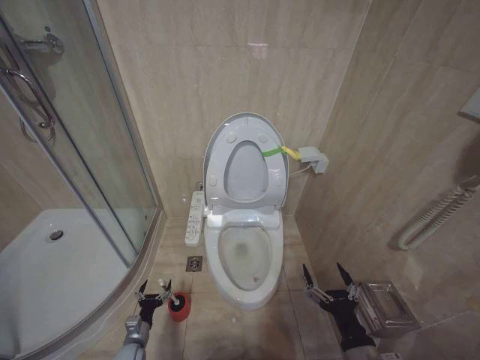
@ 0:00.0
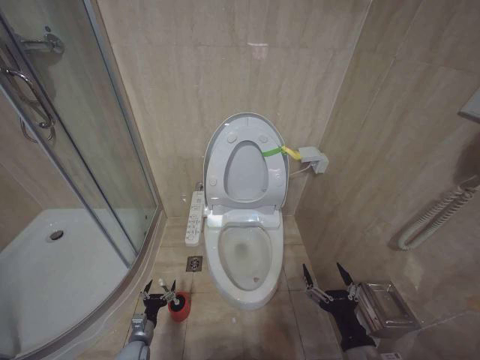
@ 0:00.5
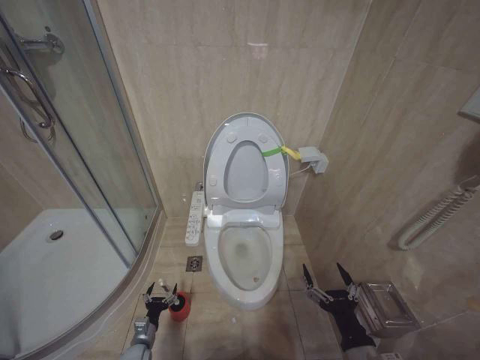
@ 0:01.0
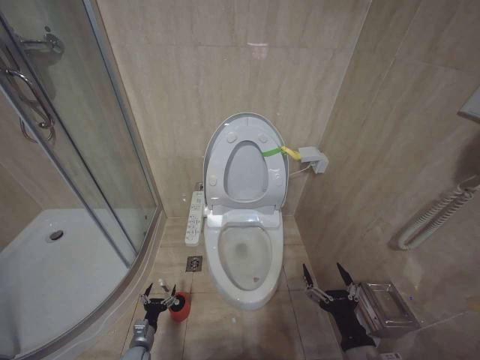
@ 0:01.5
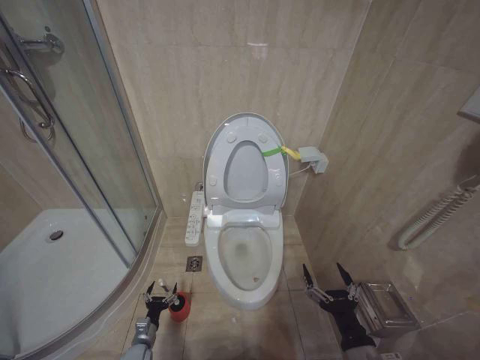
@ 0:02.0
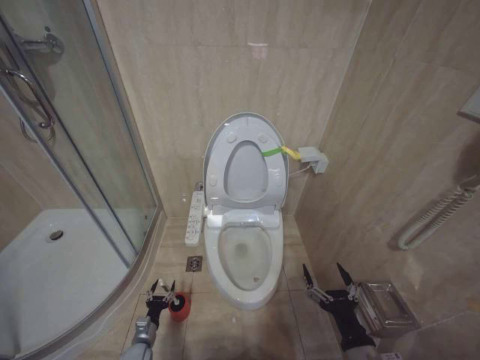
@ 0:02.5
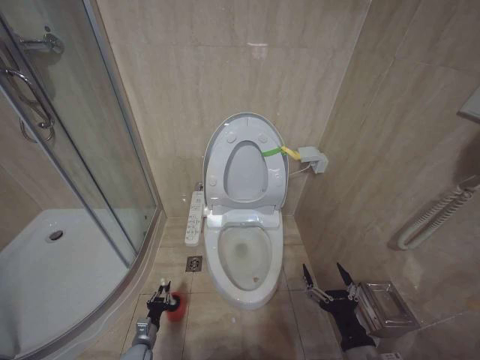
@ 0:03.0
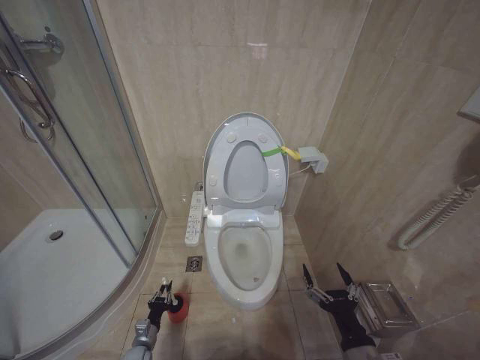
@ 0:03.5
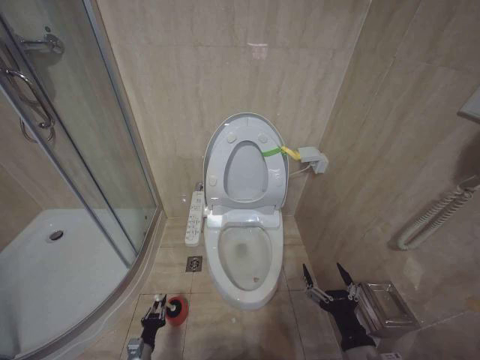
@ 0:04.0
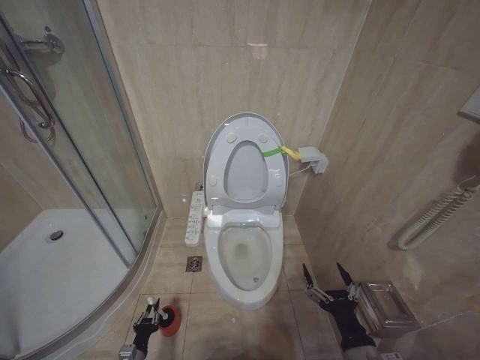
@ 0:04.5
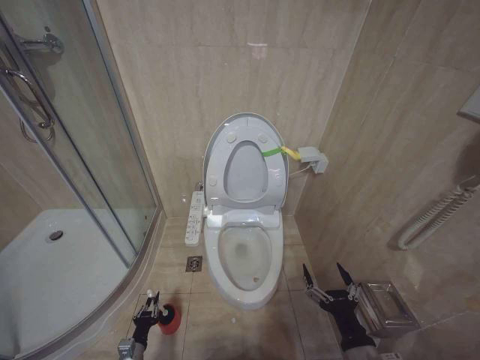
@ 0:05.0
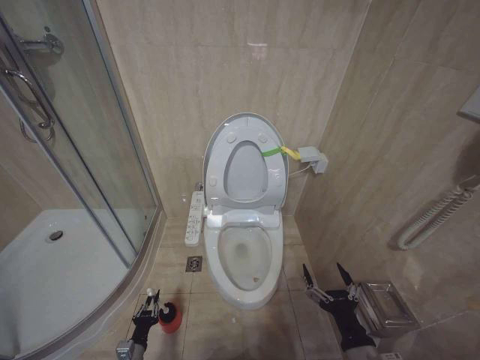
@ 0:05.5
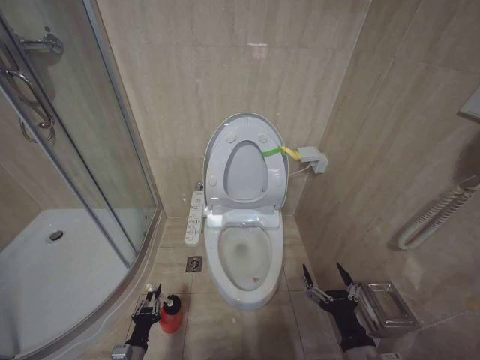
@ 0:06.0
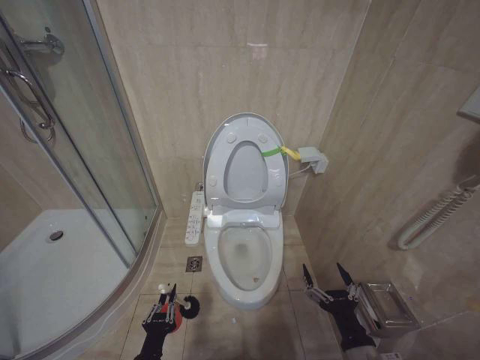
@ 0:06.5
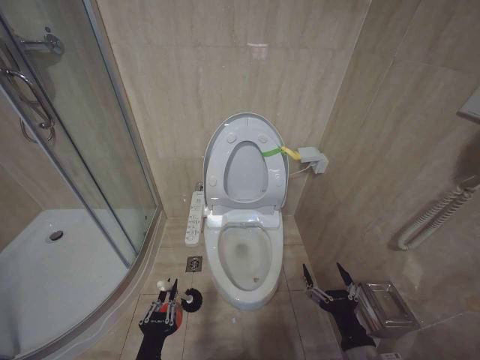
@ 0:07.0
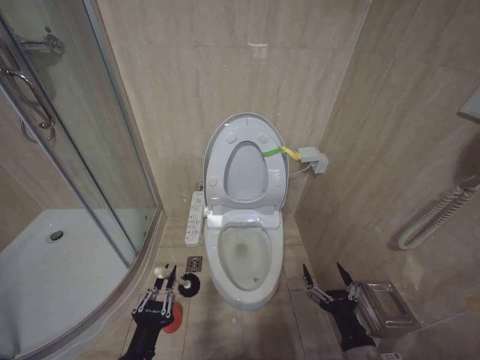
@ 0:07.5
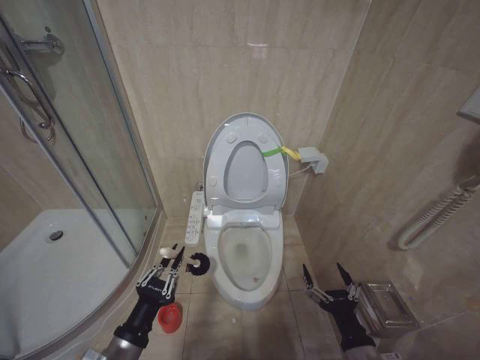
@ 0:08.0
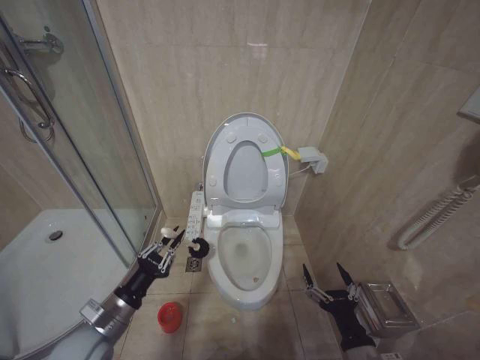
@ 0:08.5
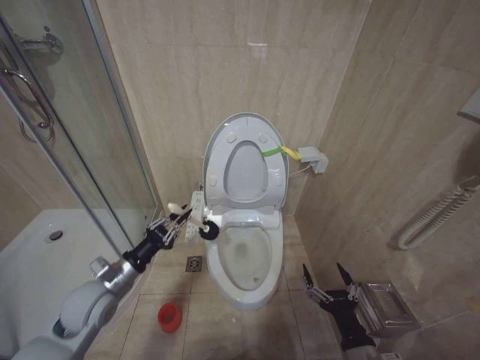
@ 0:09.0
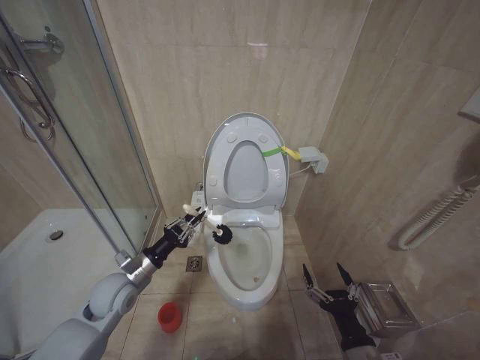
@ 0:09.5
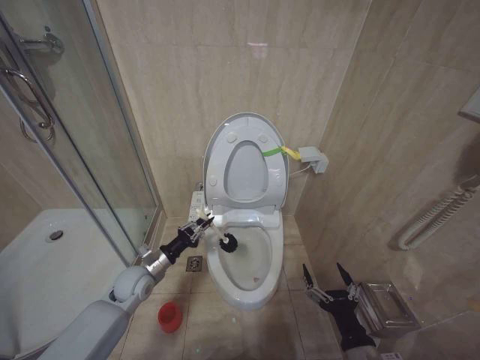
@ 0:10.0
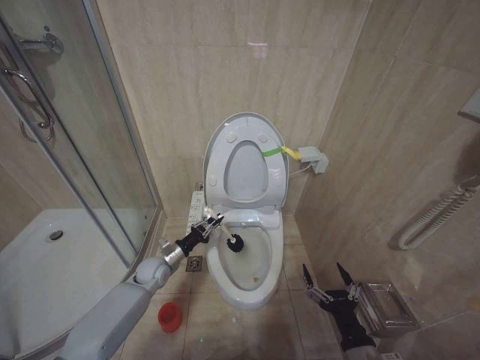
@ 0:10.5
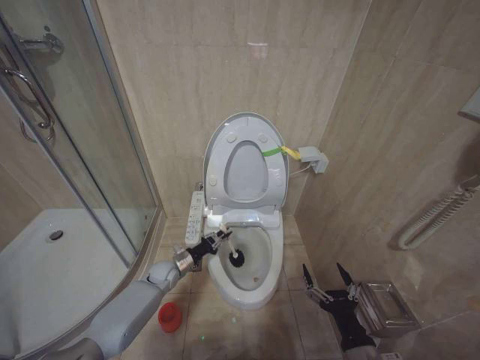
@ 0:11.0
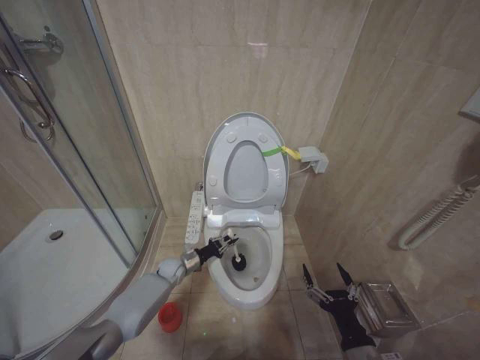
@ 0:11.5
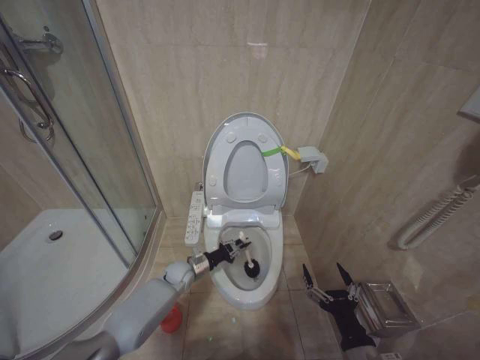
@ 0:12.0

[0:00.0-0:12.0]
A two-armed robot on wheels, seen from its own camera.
Task of the whole recording: Open the toilet lid, clean the toilet bowl with a toilet brush, close the toilet lid, and flush.
0:02.0 to 0:04.0: The left gripper ends up roughly 5 cm from where it was, and closes up.
0:04.0 to 0:06.0: The left gripper goes roughly 10 cm upward.
0:06.0 to 0:08.0: The left gripper moves upward, some 25 cm.
0:08.0 to 0:10.0: The left gripper is displaced forward by some 25 cm.
0:10.0 to 0:12.0: The left gripper goes about 15 cm downward, to the right and forward.

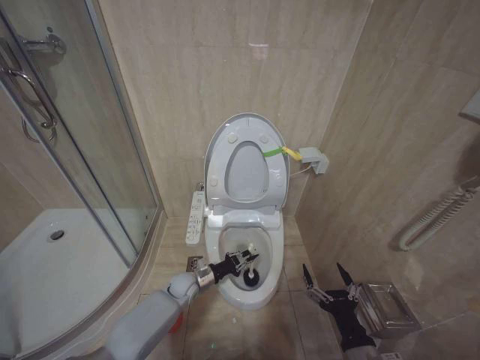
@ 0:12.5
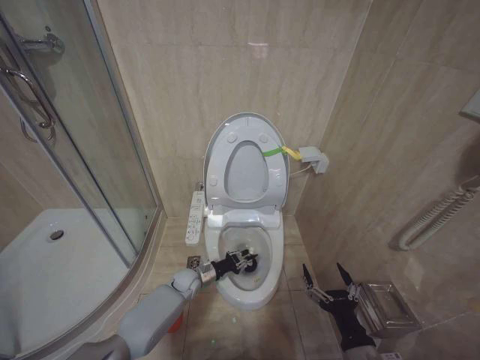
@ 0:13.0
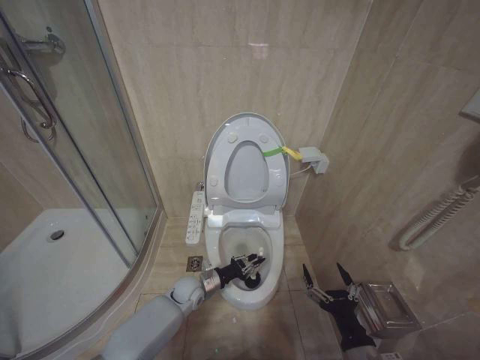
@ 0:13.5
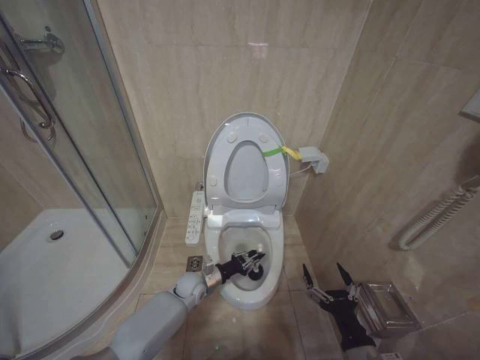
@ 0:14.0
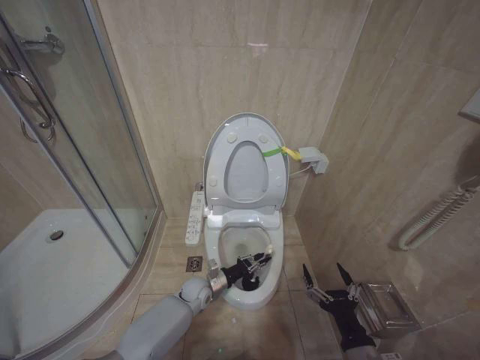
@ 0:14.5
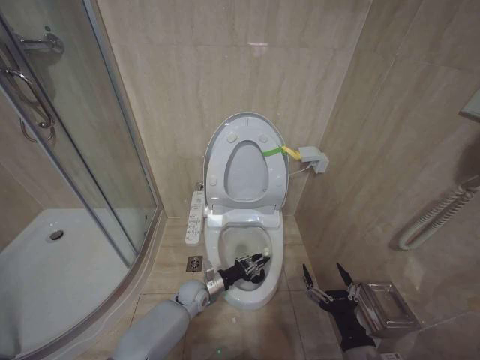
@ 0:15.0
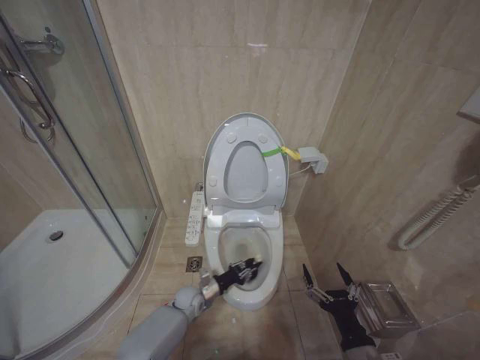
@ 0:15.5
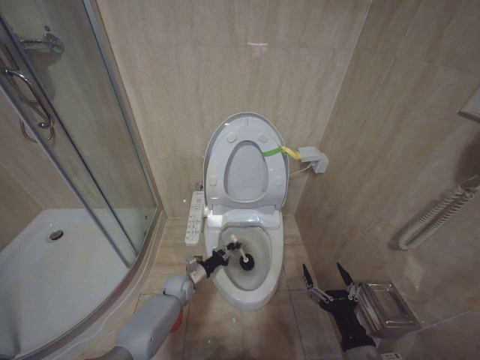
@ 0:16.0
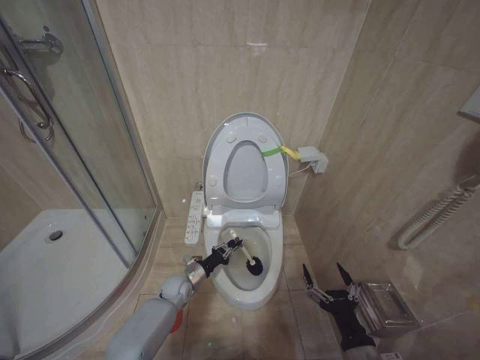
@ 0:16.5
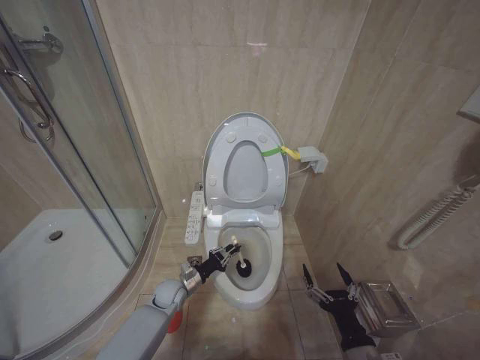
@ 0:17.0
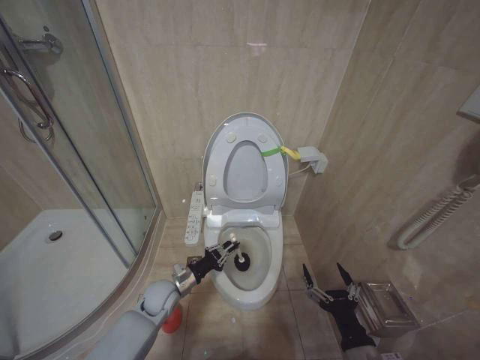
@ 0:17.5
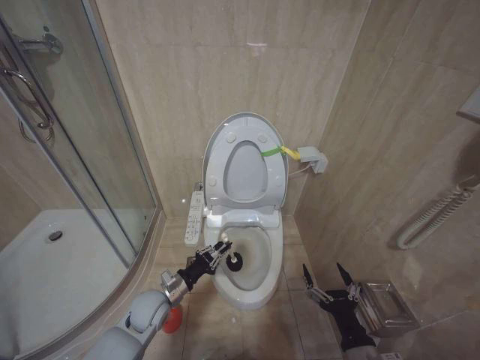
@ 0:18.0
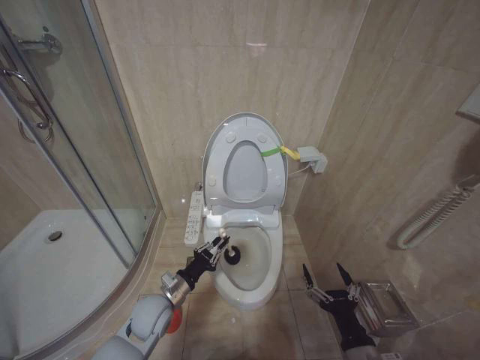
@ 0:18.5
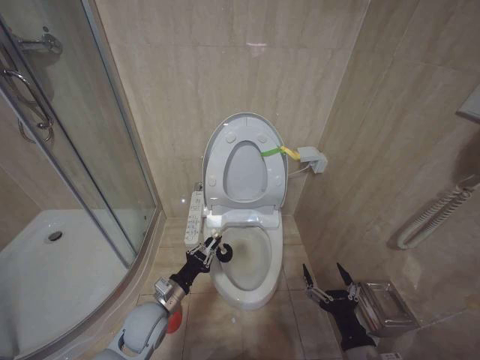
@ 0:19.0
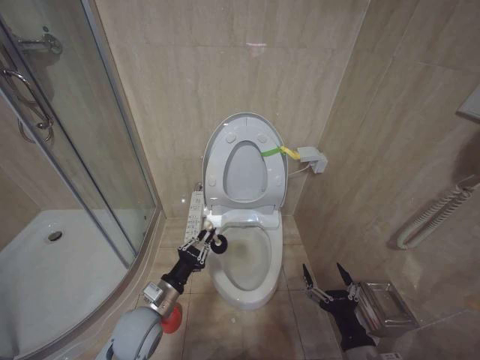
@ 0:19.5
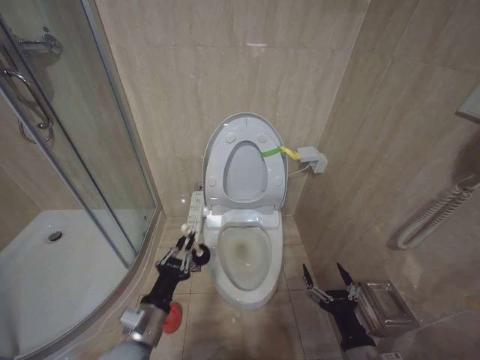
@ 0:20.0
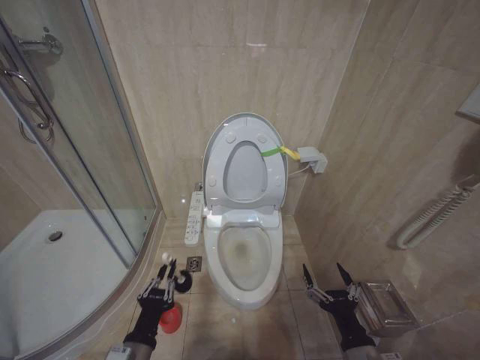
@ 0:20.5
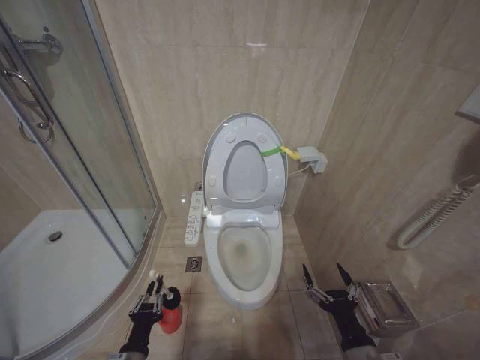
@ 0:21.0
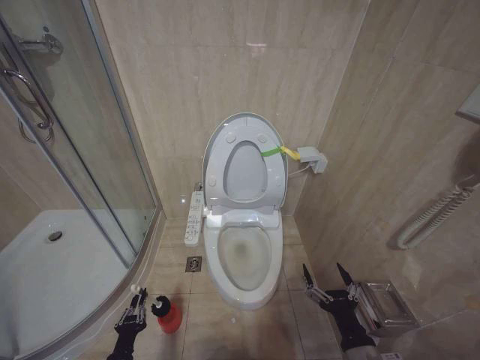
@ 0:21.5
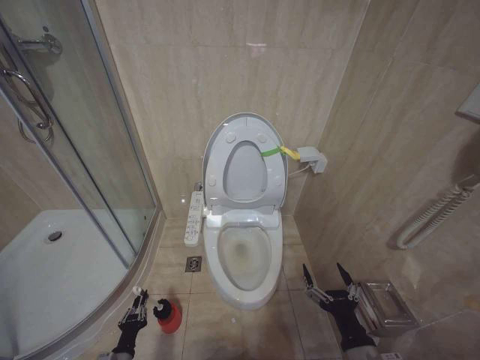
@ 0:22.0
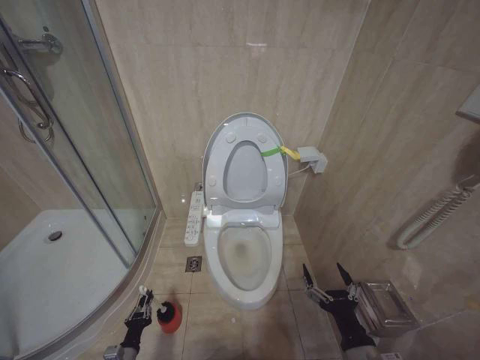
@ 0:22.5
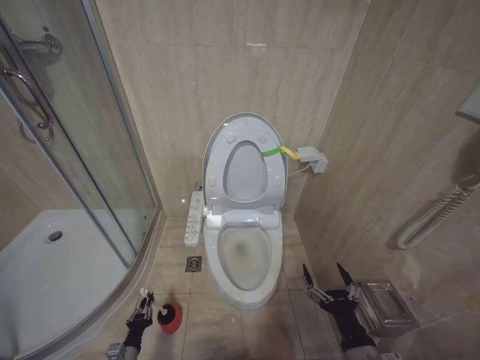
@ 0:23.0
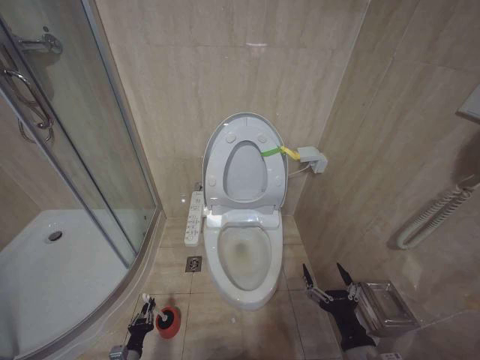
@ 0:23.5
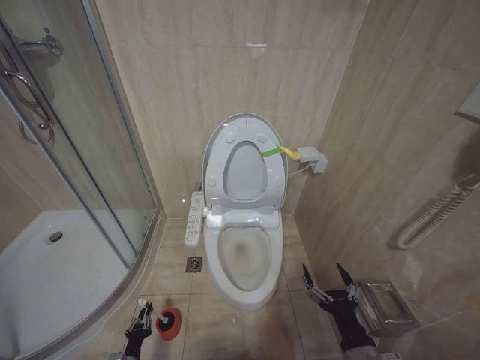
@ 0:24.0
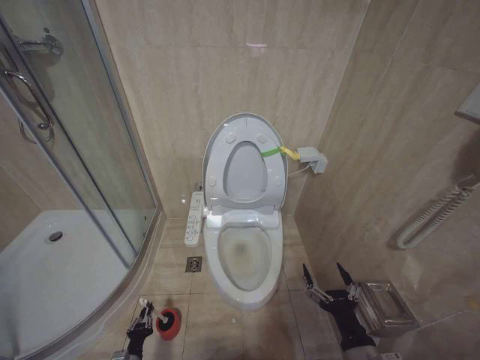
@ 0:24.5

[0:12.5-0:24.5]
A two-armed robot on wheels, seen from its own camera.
Task of the whole recording: Open the toilet lid, clean the toilet bowl with a toilet brush, close the toilet lid, and flush.
0:12.5 to 0:14.5: The left gripper is displaced to the right by about 5 cm.
0:14.5 to 0:16.5: The left gripper heads to the left, covering approximately 5 cm.
0:16.5 to 0:18.5: The left gripper heads upward and backward, covering some 15 cm.
0:18.5 to 0:20.5: The left gripper goes about 15 cm backward.
0:20.5 to 0:22.5: The left gripper travels downward and to the left by some 30 cm.
0:22.5 to 0:24.5: The grippers make only small movements.

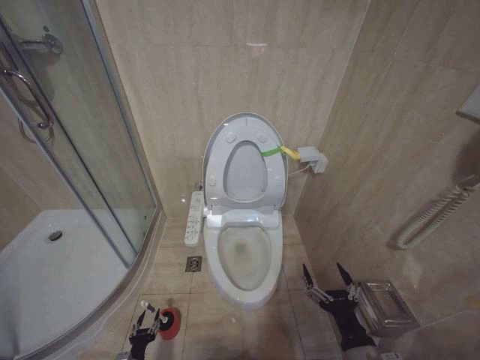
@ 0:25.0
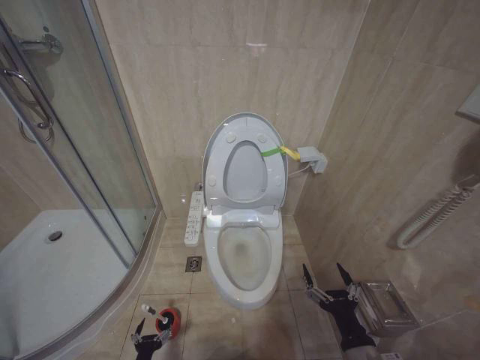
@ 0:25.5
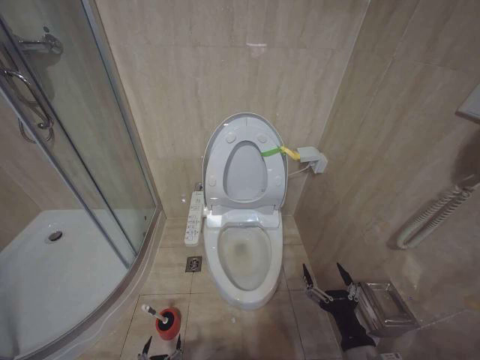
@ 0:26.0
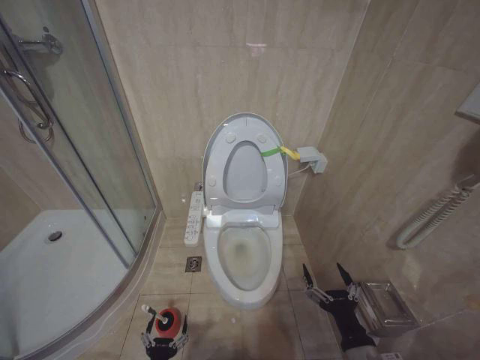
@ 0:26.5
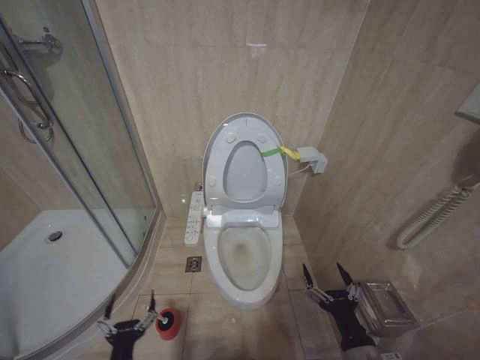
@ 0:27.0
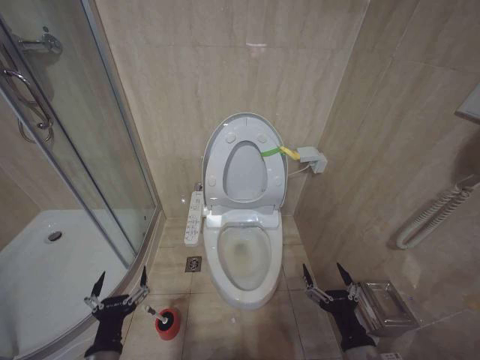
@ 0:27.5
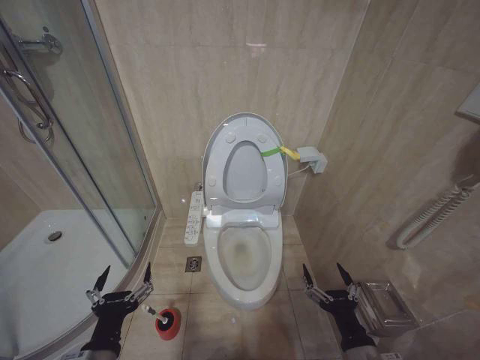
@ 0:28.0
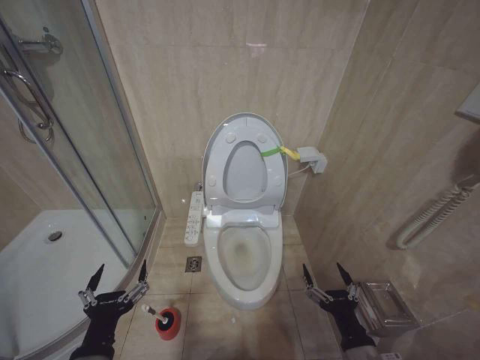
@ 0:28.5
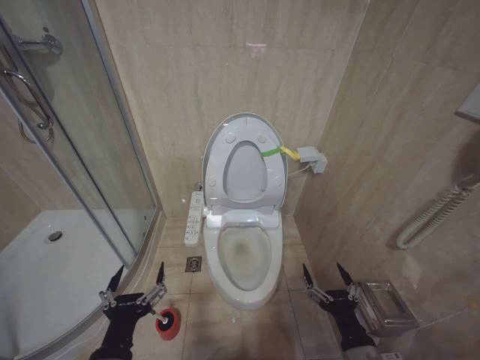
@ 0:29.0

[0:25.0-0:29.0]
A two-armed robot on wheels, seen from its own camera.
Task of the whole recording: Open the toilet lid, clean the toilet bowl with a toilet brush, close the toilet lid, and flush.
0:25.0 to 0:27.0: The left gripper goes approximately 20 cm upward, backward and to the right, and opens up.
0:27.0 to 0:29.0: The left gripper heads upward, covering approximately 20 cm.
